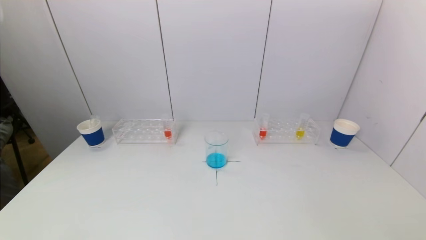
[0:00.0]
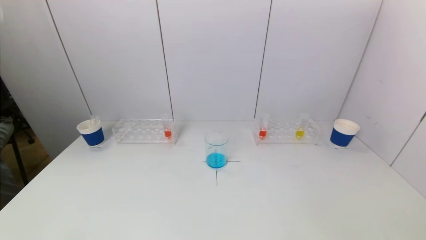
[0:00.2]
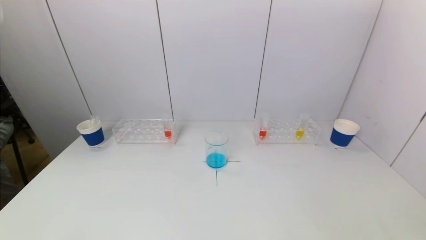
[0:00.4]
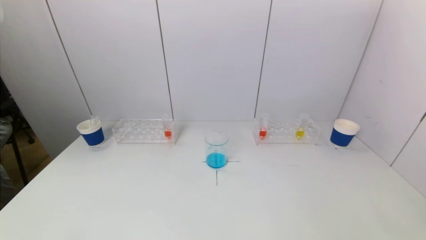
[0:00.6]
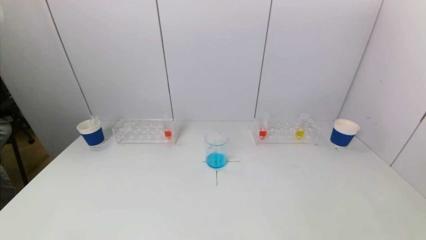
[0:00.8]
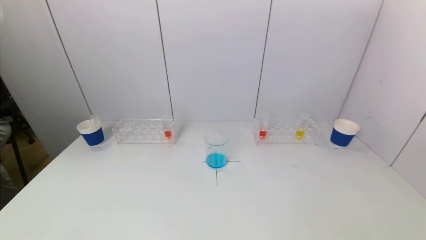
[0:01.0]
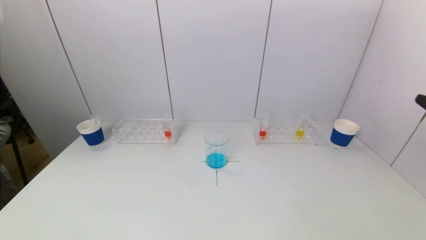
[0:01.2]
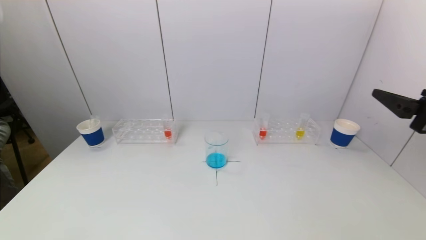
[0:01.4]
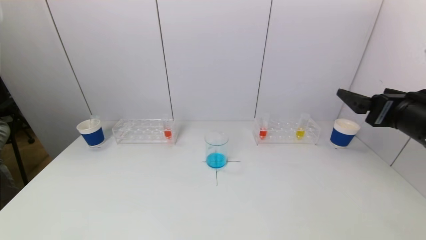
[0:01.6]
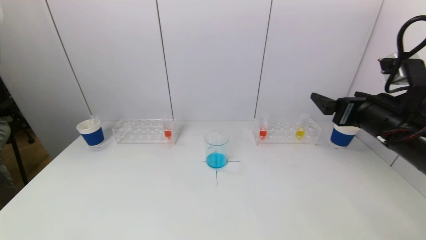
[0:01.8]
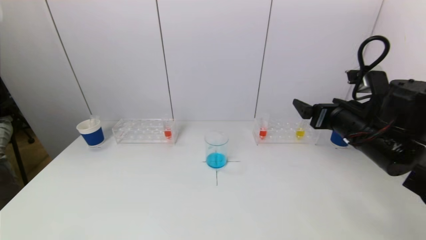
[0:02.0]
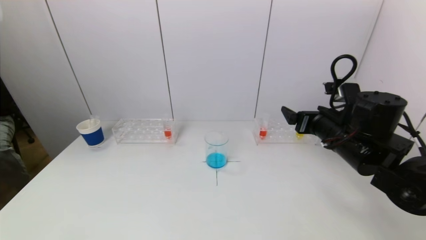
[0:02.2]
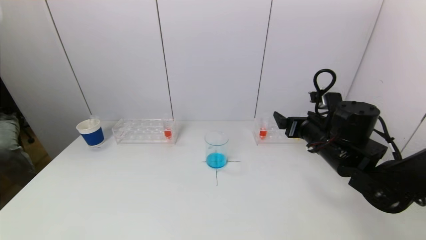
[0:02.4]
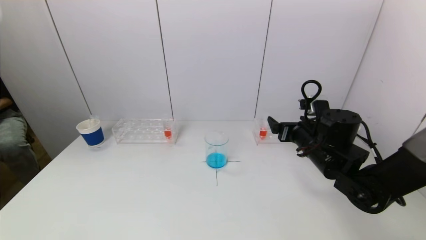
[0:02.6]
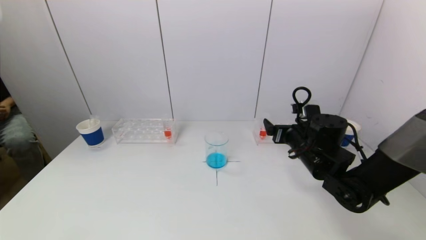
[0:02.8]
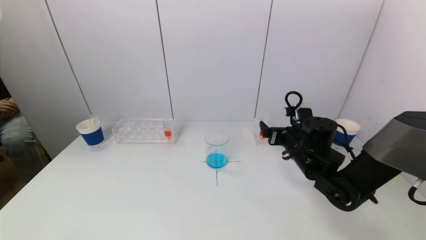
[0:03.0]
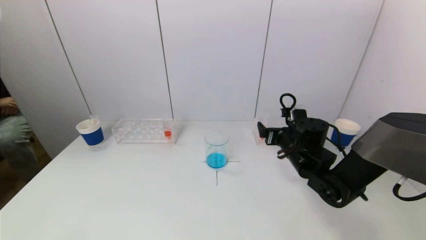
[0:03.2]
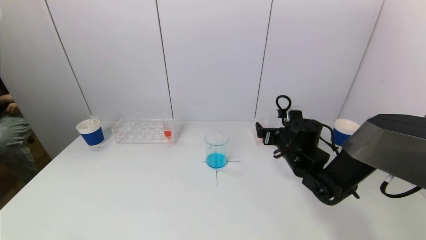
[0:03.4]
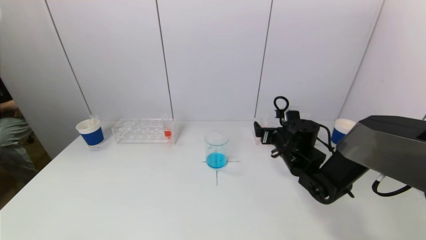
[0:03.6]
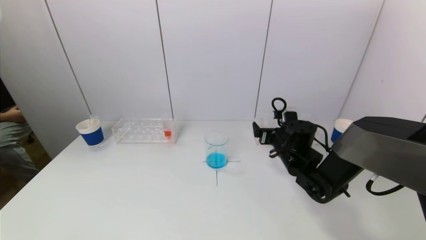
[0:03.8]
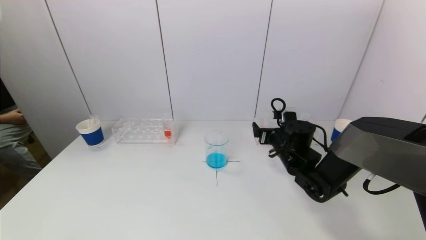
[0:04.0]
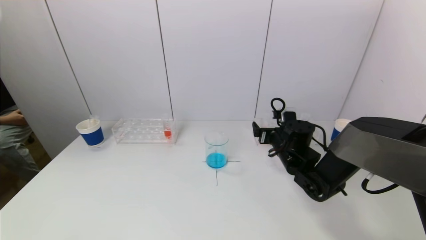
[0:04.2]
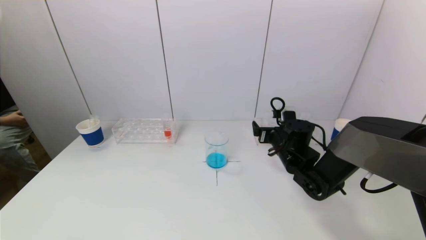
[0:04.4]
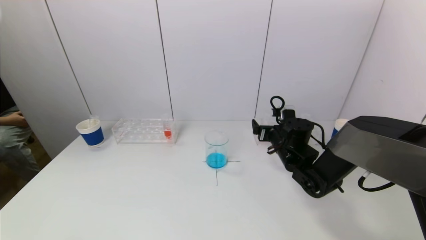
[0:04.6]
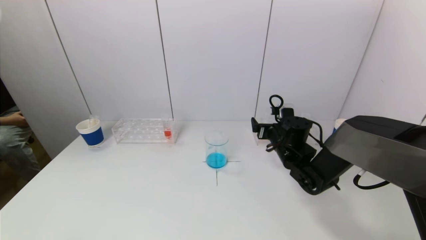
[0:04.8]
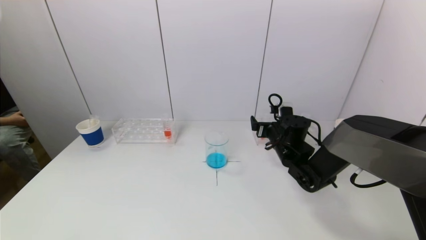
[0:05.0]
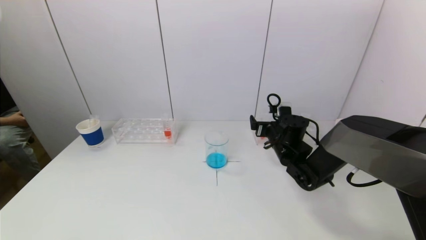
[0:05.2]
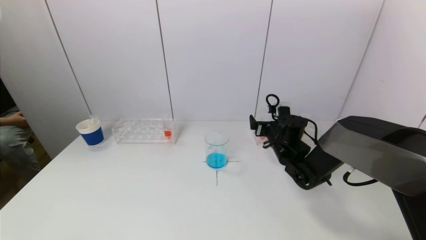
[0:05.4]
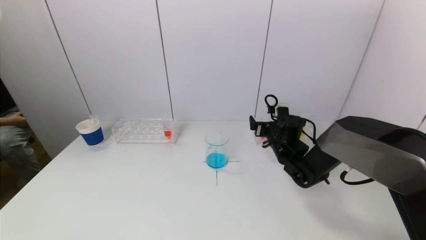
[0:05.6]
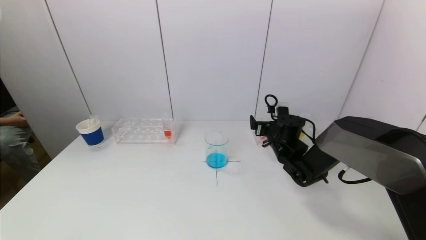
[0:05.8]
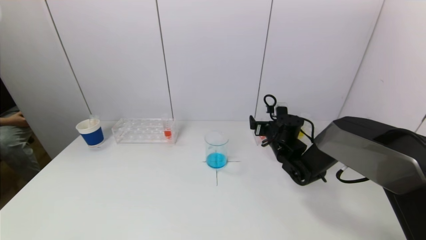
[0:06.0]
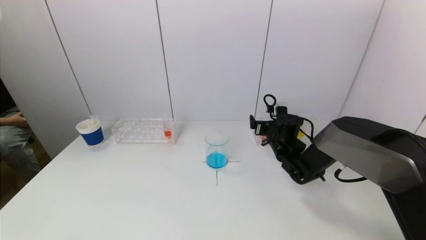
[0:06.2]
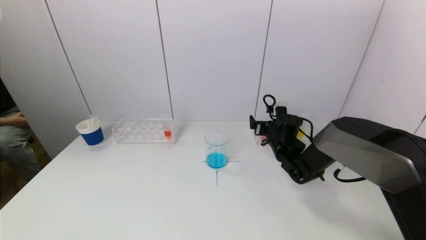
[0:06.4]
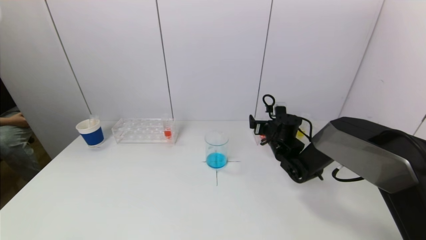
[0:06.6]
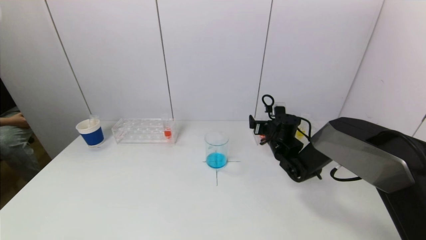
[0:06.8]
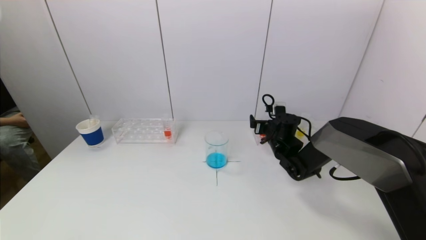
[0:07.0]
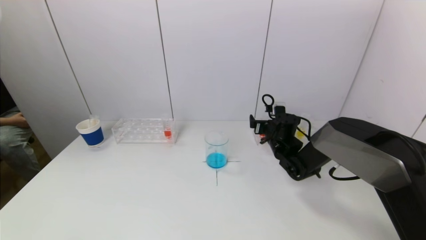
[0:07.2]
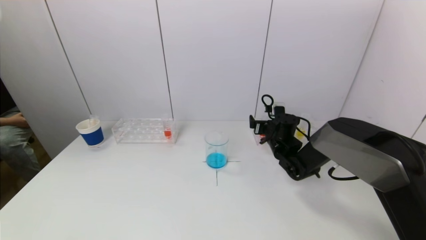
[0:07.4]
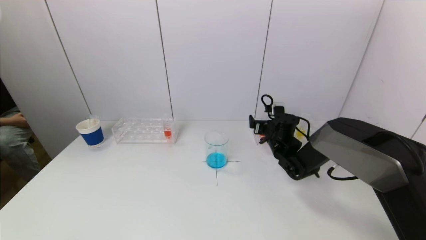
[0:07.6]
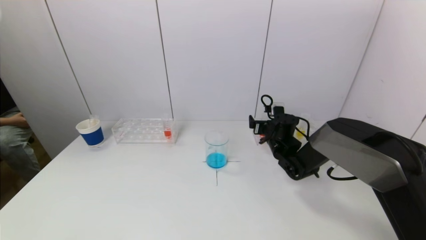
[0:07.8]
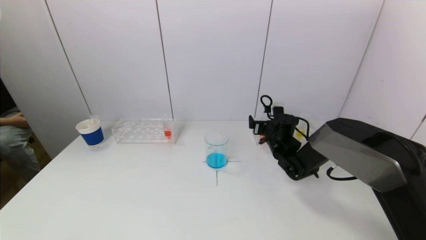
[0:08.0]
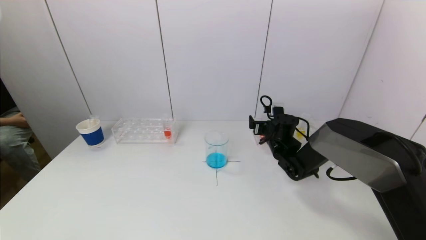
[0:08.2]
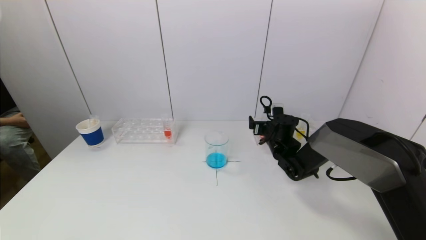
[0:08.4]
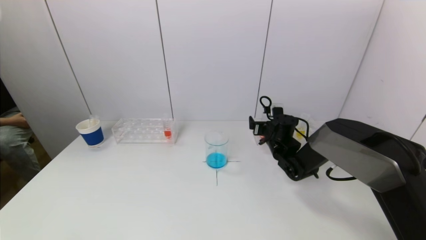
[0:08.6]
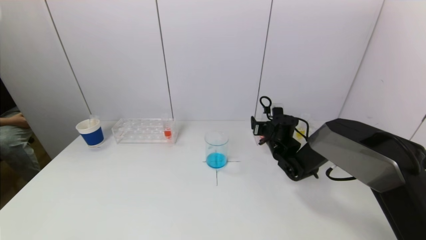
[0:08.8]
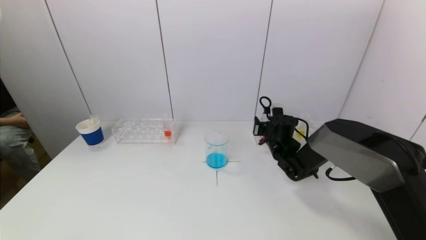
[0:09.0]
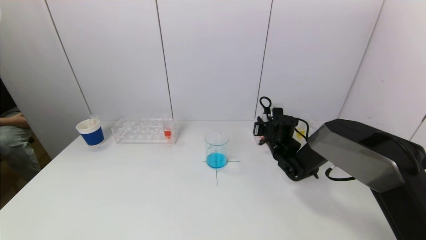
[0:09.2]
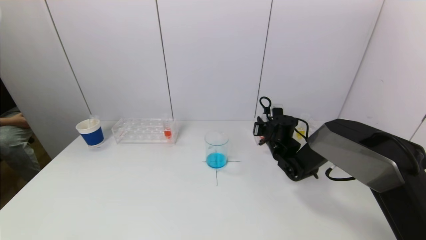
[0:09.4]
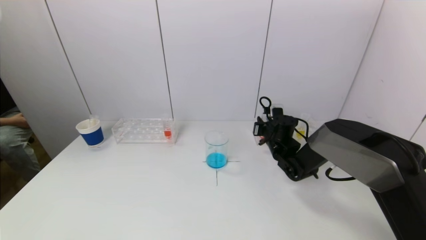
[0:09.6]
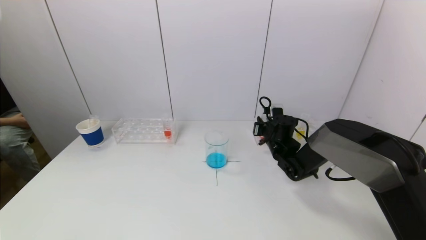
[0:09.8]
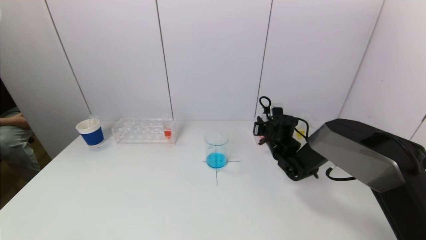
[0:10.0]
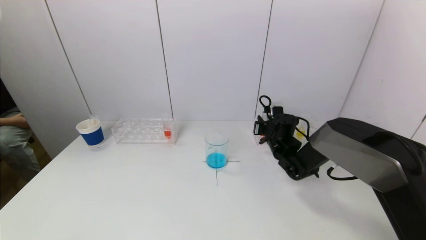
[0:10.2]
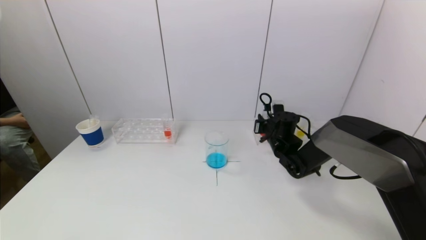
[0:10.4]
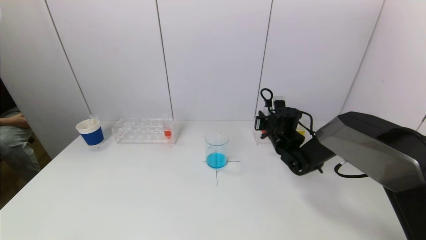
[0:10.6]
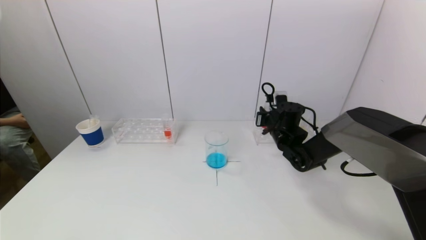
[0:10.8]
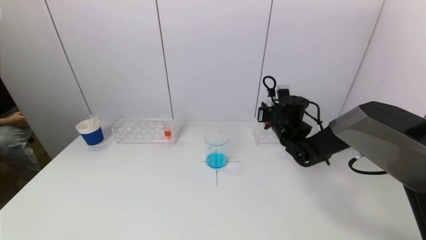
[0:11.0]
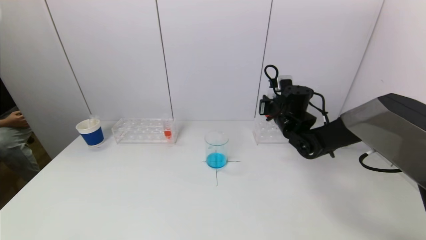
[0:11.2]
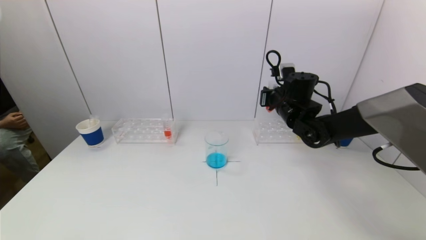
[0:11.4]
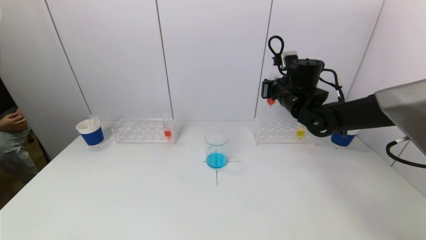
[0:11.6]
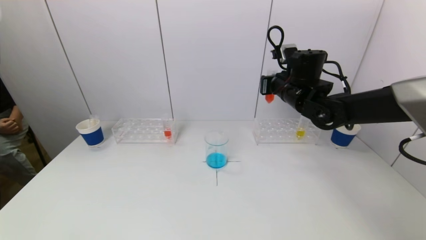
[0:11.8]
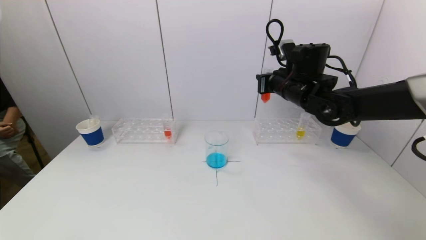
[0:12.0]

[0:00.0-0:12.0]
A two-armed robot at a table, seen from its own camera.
Task of the whole recording: pick up a test tube with pigment on left test tube rack and a test tube with pigment on right test tube rack by grippers and pour them into the beaker.
Step, 0:00.0 to 0:09.8: Grasp the red reagent with the right gripper.
0:00.0 to 0:01.6: The right gripper moves forward and upward, about 25 cm.
0:01.6 to 0:03.0: The right gripper is displaced downward, forward and to the left by roughly 20 cm.
0:03.0 to 0:04.4: The right gripper shifts by approximately 5 cm.
0:04.4 to 0:06.0: The grippers move only a little.
0:06.0 to 0:07.6: The grippers make only small movements.
0:07.6 to 0:09.0: The right gripper closes.
0:09.0 to 0:10.4: The grippers move only a little.
0:10.4 to 0:12.0: The right gripper travels upward by about 20 cm.

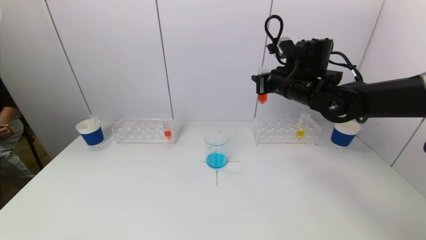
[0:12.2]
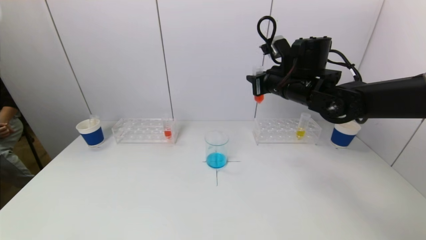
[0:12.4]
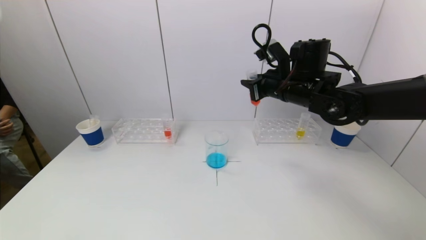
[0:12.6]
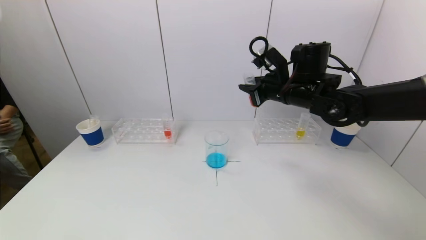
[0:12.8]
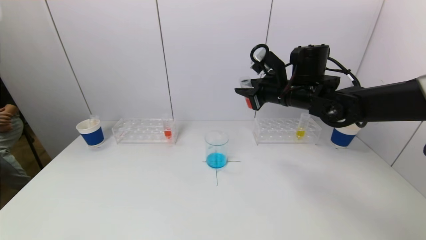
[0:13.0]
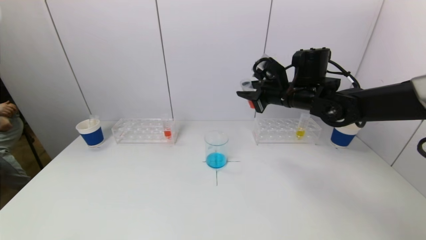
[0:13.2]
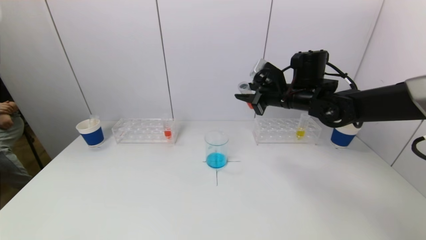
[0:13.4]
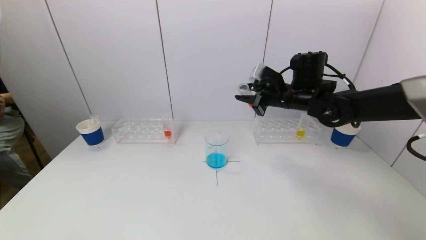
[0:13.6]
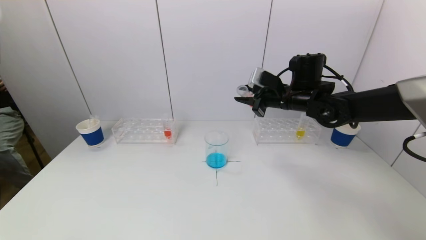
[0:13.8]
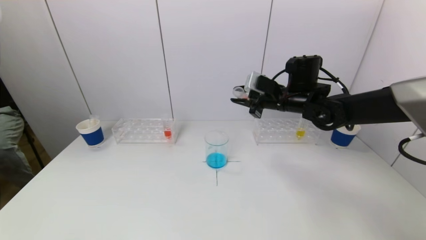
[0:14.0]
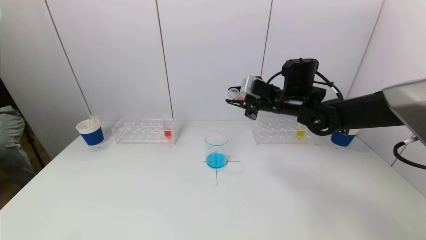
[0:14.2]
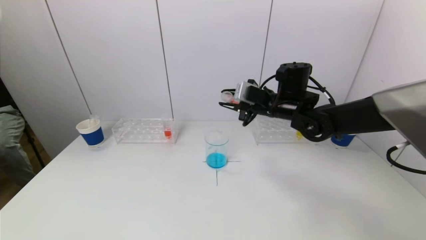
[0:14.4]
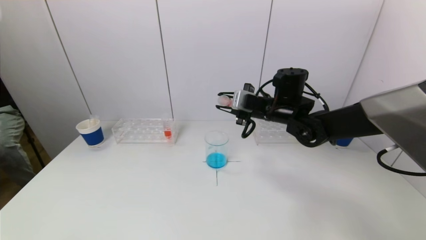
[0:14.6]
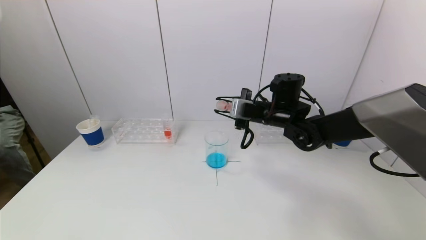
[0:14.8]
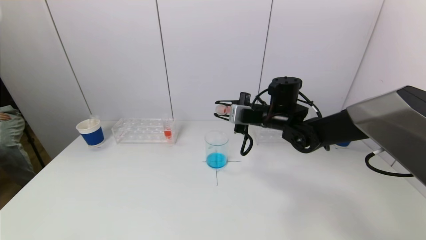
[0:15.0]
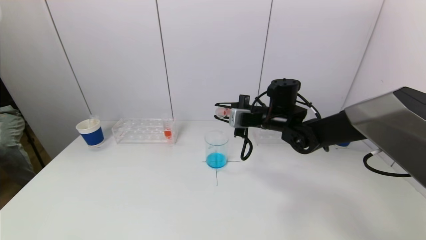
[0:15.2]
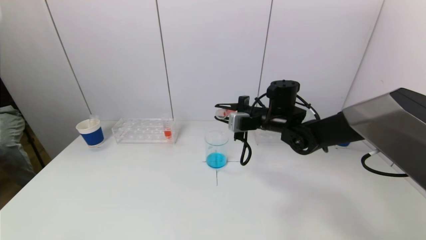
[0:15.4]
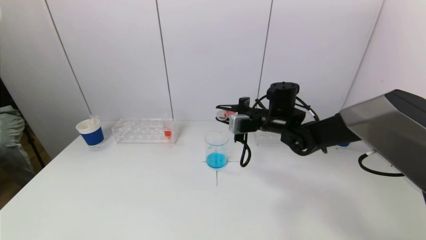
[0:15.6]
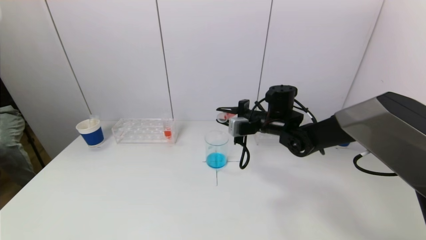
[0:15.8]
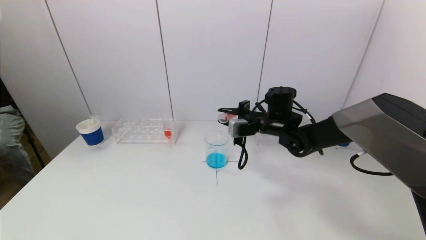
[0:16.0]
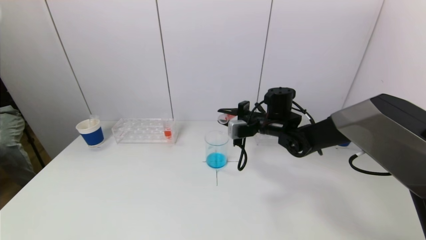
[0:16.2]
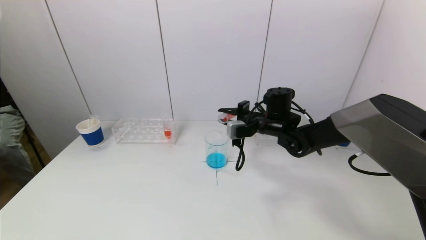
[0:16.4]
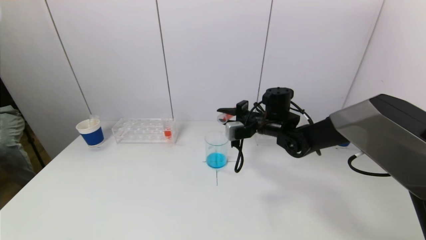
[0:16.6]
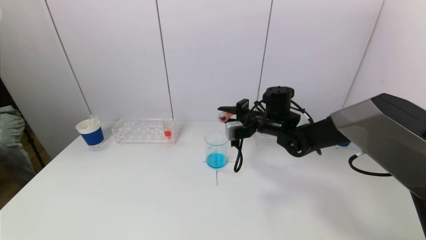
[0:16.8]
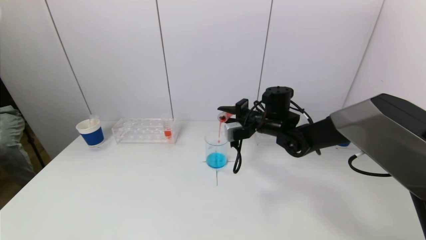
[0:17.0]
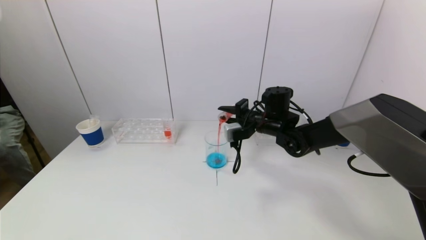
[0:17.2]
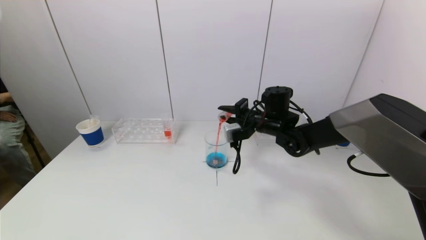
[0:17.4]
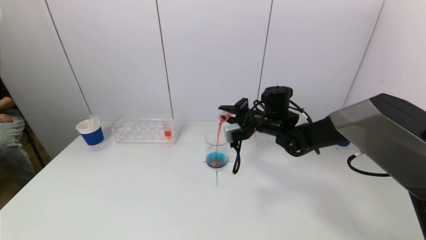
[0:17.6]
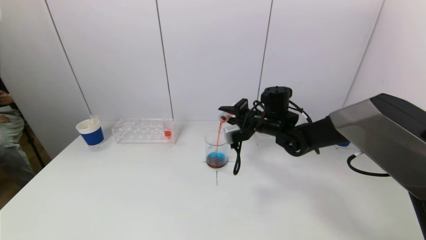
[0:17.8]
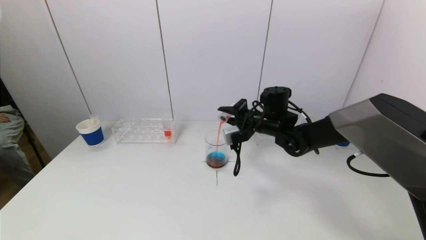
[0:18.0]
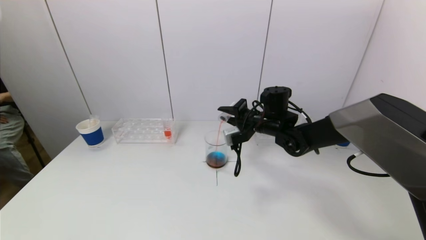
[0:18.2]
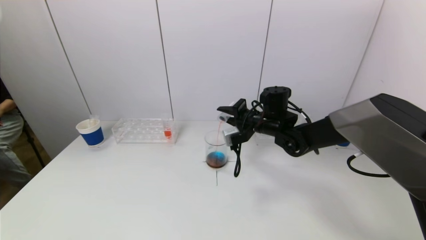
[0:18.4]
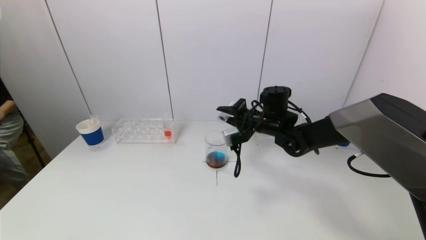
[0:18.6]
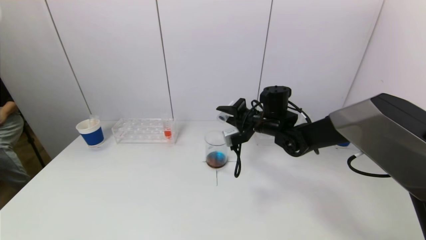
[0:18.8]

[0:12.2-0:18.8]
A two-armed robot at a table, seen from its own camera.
Task of the whole recording: pick up a test tube with pigment on left test tube rack and a test tube with pigment on right test tube rack by grippers and pour them into the beaker.
0:13.8 to 0:15.4: The right gripper is displaced downward by about 5 cm.
0:15.4 to 0:17.2: The grippers move only a little.
0:17.2 to 0:18.8: The grippers stay close to where they were, moving slightly.
